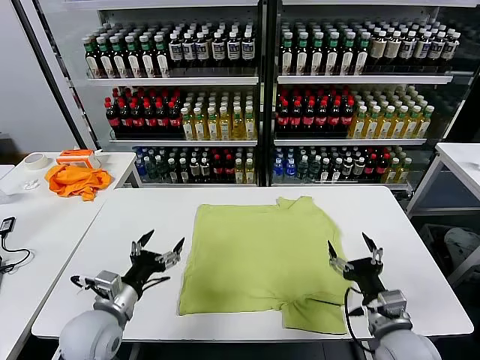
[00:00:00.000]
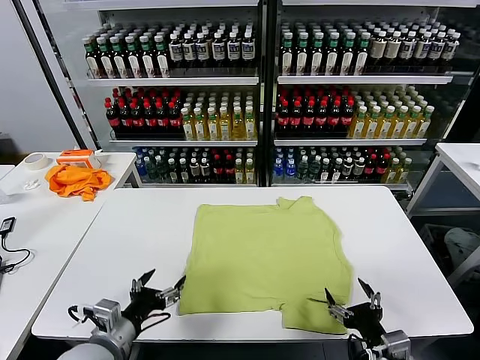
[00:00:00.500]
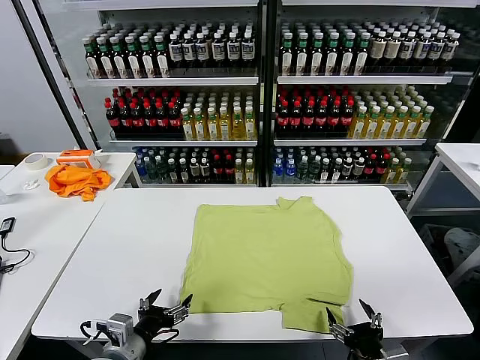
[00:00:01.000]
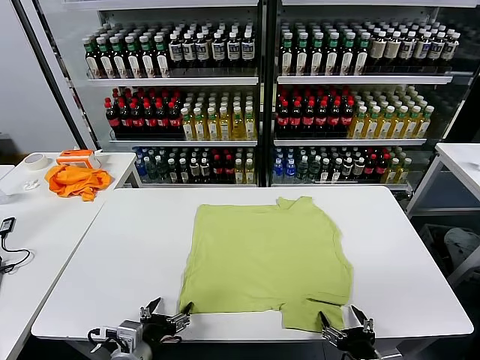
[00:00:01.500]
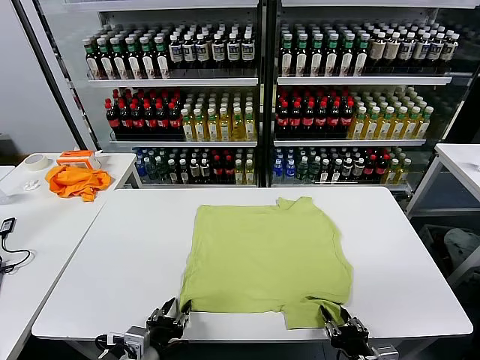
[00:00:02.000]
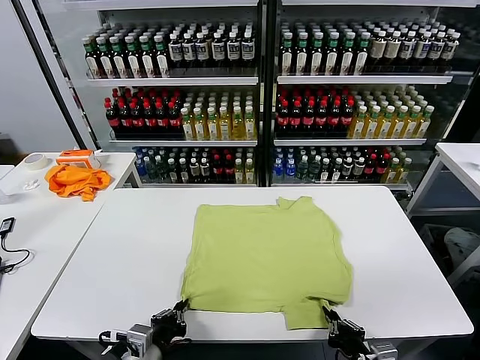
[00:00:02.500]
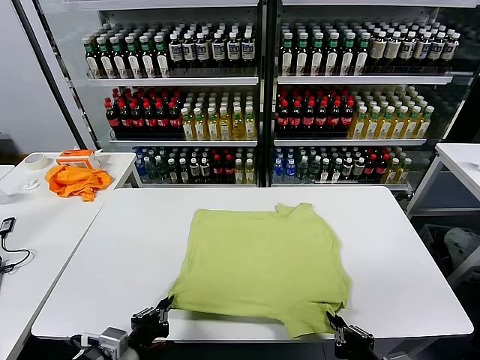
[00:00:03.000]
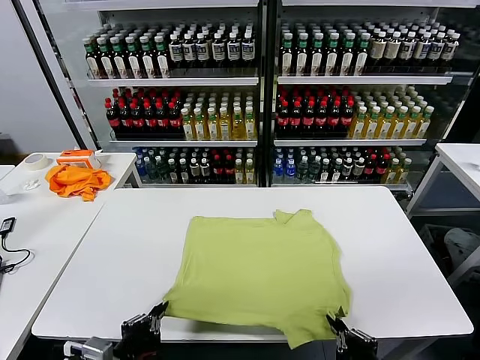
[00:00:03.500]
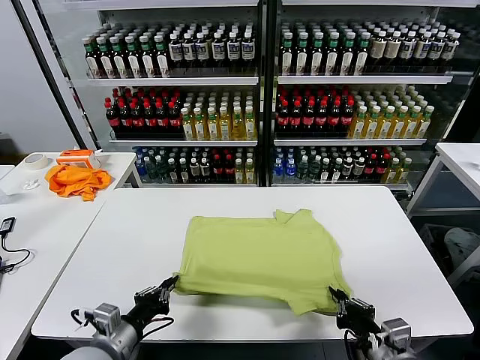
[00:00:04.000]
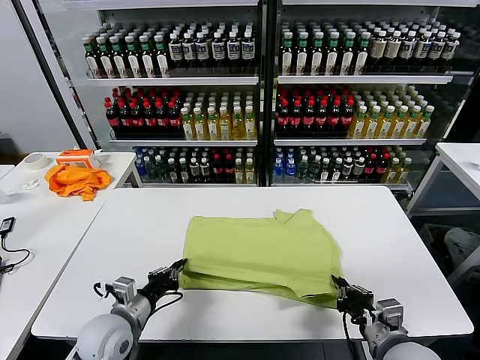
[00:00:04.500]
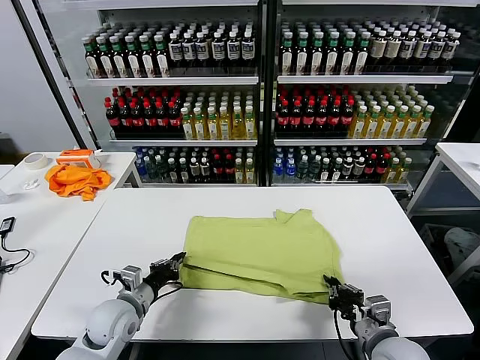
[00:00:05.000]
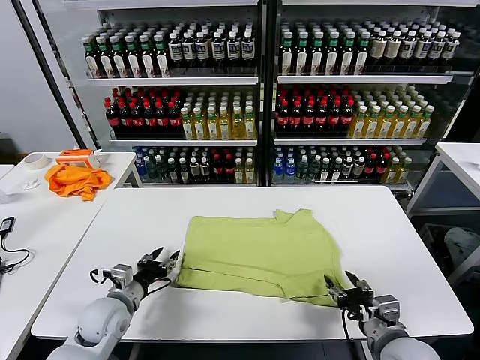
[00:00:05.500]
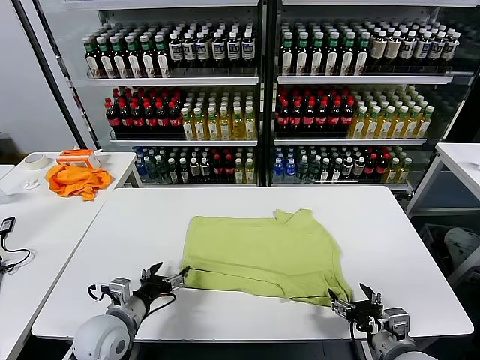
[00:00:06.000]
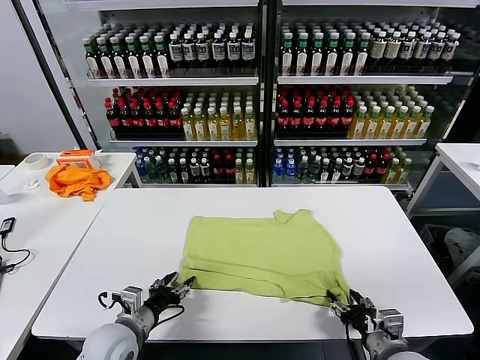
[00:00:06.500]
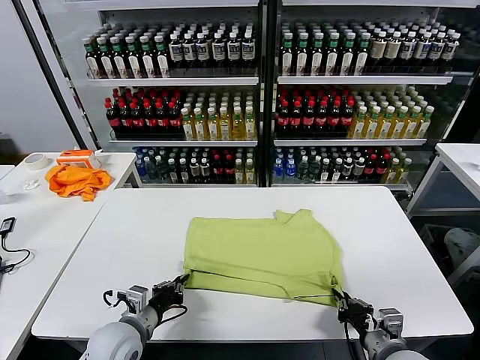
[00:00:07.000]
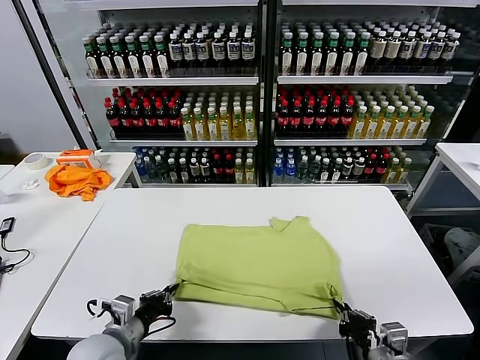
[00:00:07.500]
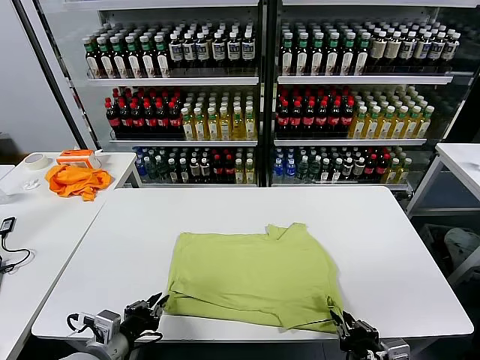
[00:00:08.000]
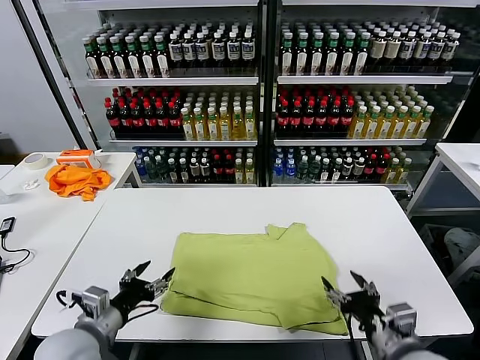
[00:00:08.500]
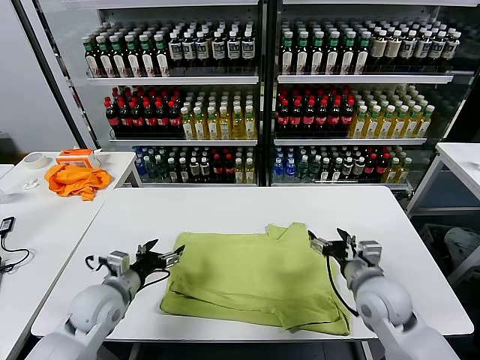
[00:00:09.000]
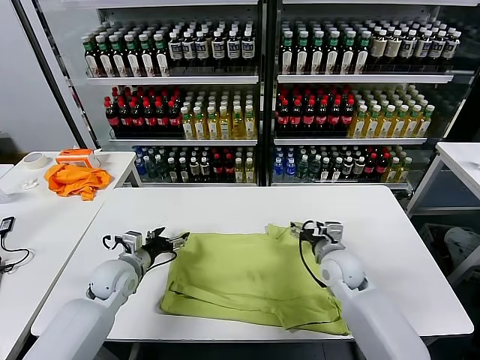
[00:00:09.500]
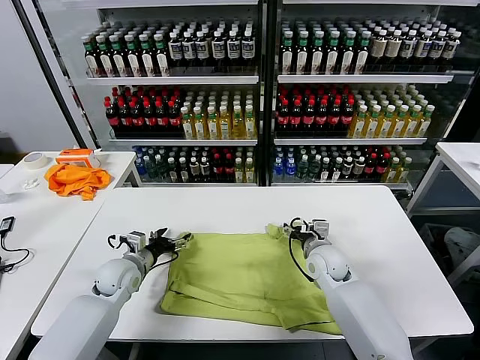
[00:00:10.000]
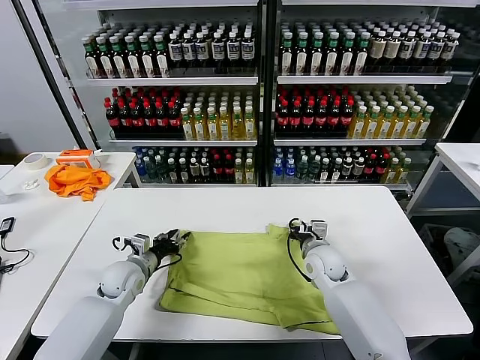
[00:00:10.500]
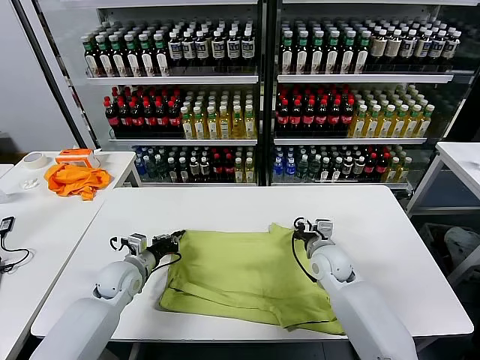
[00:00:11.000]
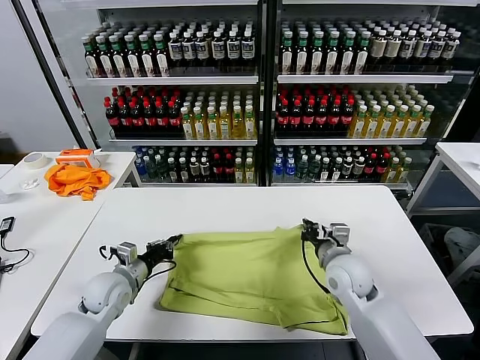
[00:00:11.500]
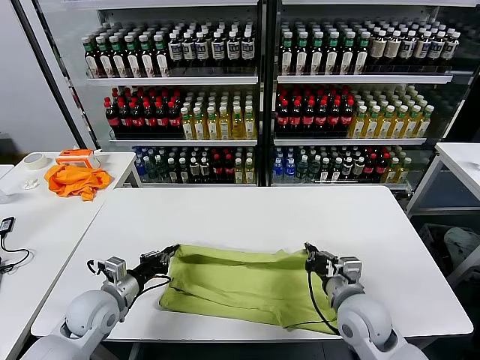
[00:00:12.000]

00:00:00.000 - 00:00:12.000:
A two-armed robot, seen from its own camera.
Task of the whole recording: fold and organize the clothes.
Step, 00:00:00.000 - 00:00:02.500: use both grippers simultaneously to clamp the lower edge of the clothing fabric.
Step, 00:00:03.000 - 00:00:05.000: use both grippers to drag the lower edge of the fabric forward and fold it over the upper edge.
Step, 00:00:05.500 - 00:00:08.000: Drag the clothes downward with both gripper.
Step, 00:00:08.500 - 00:00:11.000: use both grippers simultaneously to clamp the upper edge of the clothing fabric.
00:00:02.000 - 00:00:04.000: The left gripper heads to the left, covering about 5 cm, and closes its fingers. The right gripper moves upward, approximately 5 cm.
00:00:04.000 - 00:00:06.000: The left gripper shifts some 5 cm forward, and opens. The right gripper opens up.
00:00:06.000 - 00:00:08.000: Both grippers travel together backward, about 5 cm. The left gripper closes, while the right gripper closes.
00:00:08.000 - 00:00:10.000: Both grippers move forward, roughly 25 cm. The right gripper opens its fingers; the left gripper opens up.
00:00:10.000 - 00:00:12.000: The left gripper is displaced backward by roughly 10 cm, and closes. The right gripper shifts about 15 cm backward, and closes its fingers.

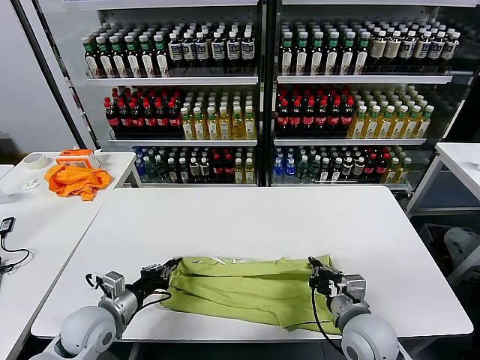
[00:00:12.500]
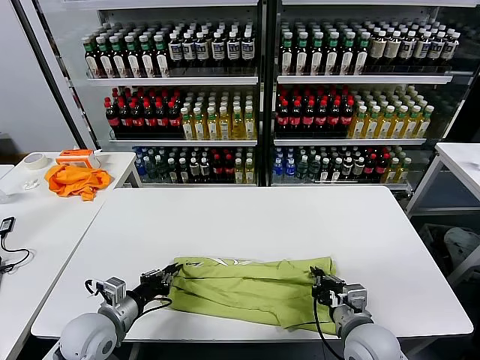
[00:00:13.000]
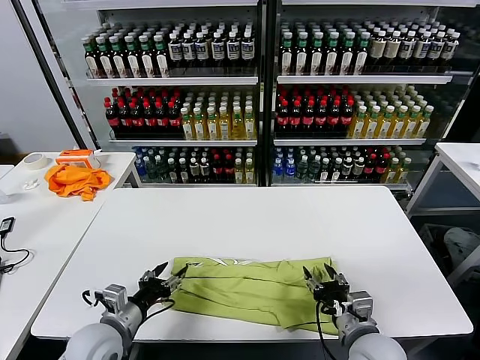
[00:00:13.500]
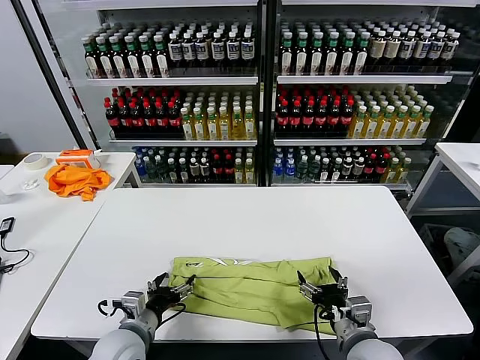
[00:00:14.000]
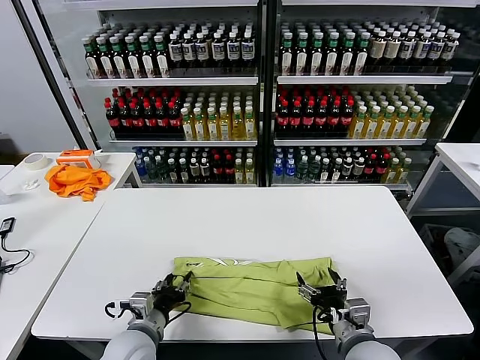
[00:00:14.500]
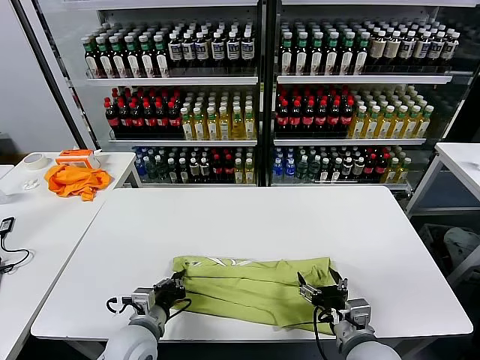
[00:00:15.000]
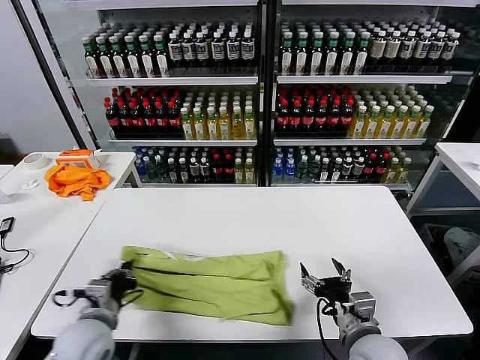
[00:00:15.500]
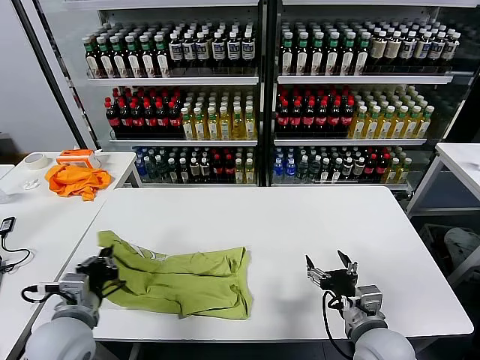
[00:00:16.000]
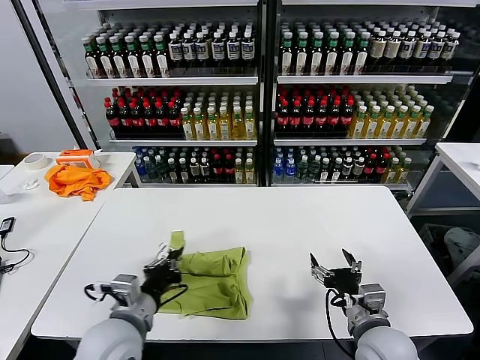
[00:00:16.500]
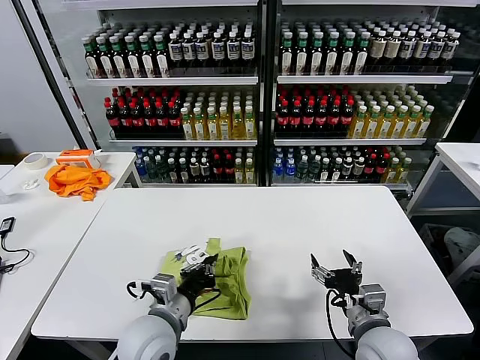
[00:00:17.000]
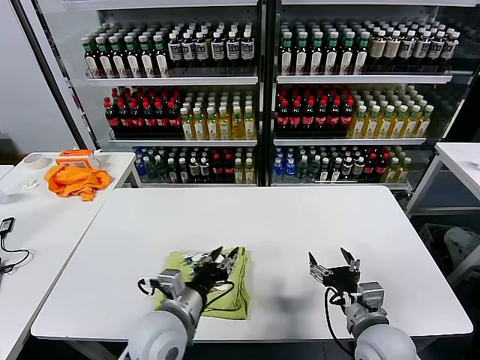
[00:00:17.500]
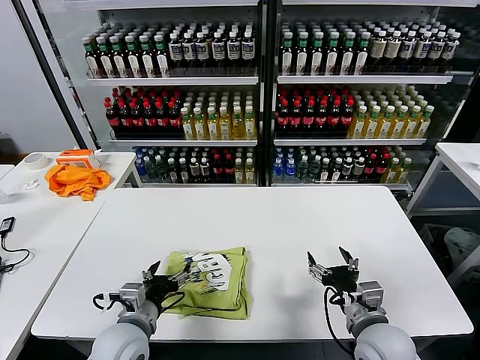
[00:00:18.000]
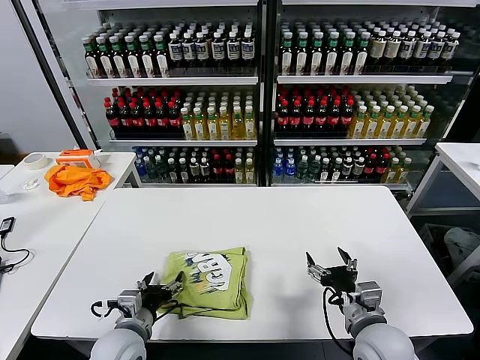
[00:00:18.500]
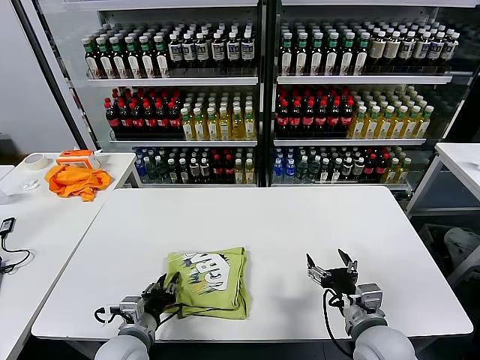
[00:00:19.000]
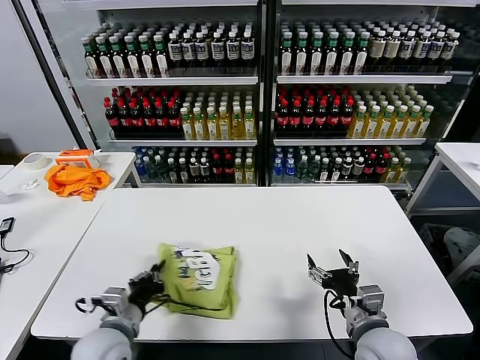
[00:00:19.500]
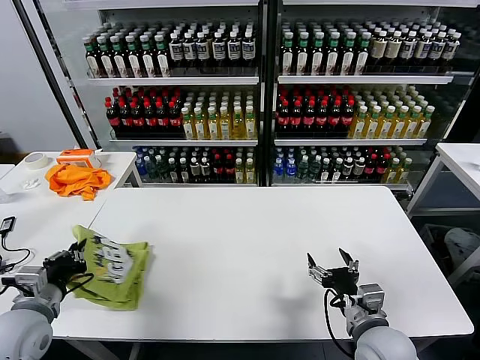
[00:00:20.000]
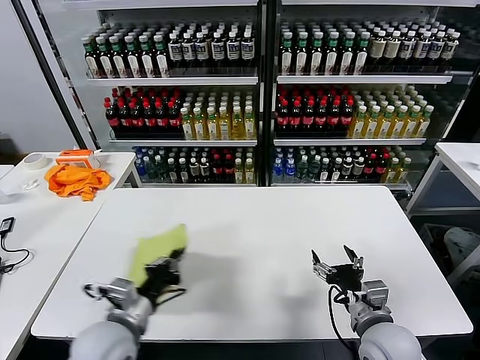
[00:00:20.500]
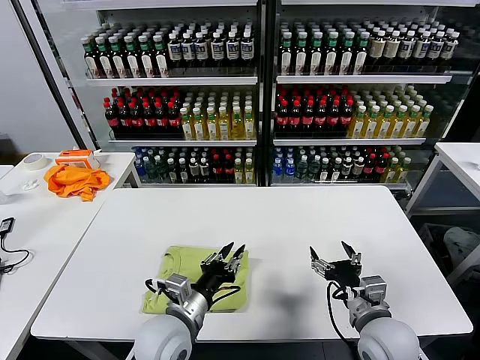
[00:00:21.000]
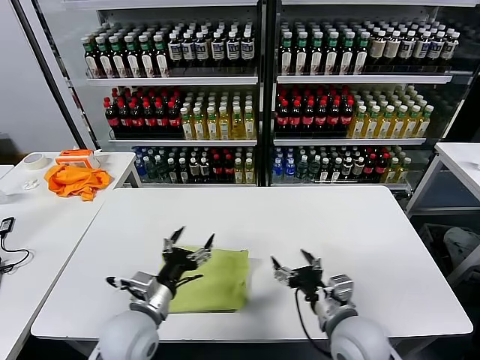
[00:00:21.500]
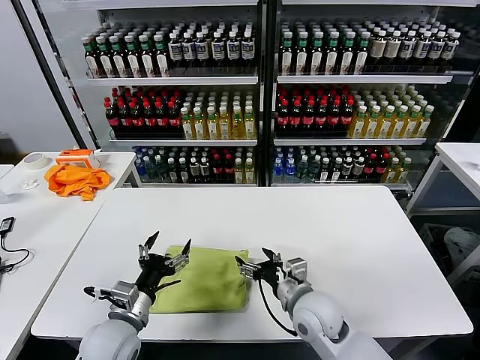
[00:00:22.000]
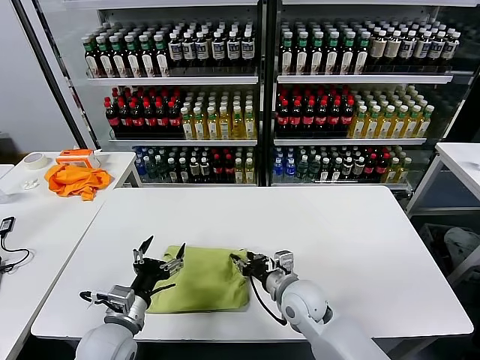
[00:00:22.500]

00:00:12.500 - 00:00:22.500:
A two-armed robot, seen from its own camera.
Task of the whole recording: fold and organize the clothes.
Step, 00:00:13.500 - 00:00:14.500: use the left gripper to clamp the left edge of the fabric.
Step, 00:00:15.000 - 00:00:17.500: use the left gripper to drag the left edge of the fabric to the left and folds it over the right edge.
Step, 00:00:18.000 - 00:00:20.500: Flip the folded clothes over with left gripper.
00:00:12.500 - 00:00:14.500: The left gripper moves to the right, some 10 cm, and opens up; the right gripper opens its fingers.
00:00:14.500 - 00:00:16.500: The left gripper is displaced upward by some 10 cm, and closes up.
00:00:16.500 - 00:00:18.500: The left gripper goes approximately 10 cm downward, goes to the right and returns, some 10 cm each way, and opens up.
00:00:18.500 - 00:00:20.500: The left gripper moves upward, approximately 10 cm, travels to the left and back again, roughly 15 cm each way, and closes its fingers.
00:00:20.500 - 00:00:22.500: The left gripper travels downward by about 5 cm, reaches some 10 cm to the right, then returns, and opens its fingers, while the right gripper shifts approximately 15 cm to the left and forward, and closes its fingers.

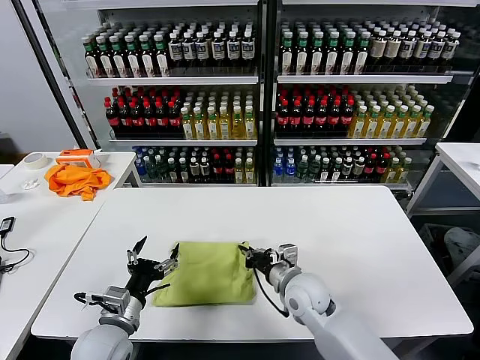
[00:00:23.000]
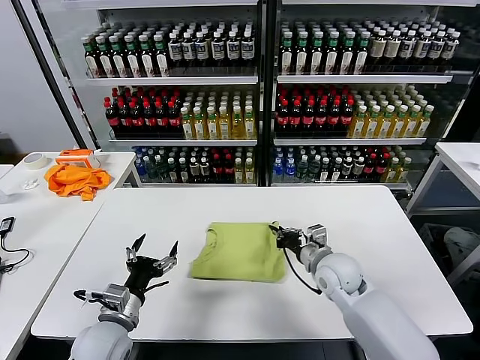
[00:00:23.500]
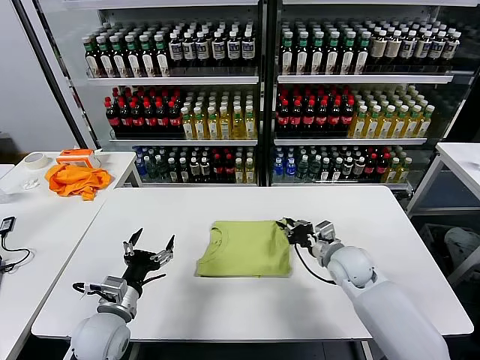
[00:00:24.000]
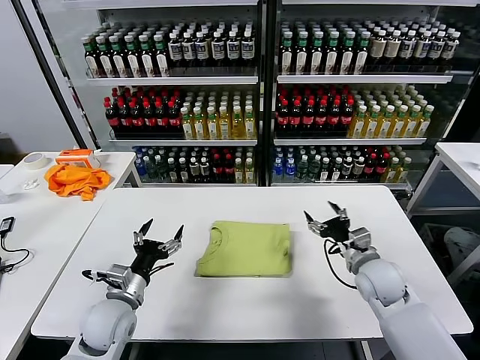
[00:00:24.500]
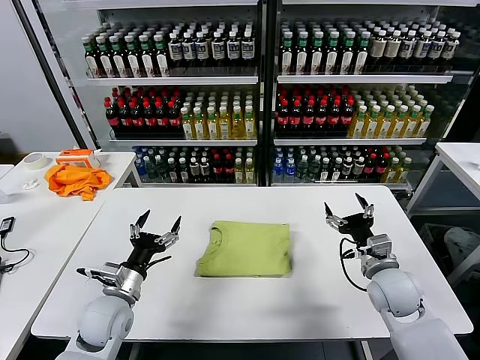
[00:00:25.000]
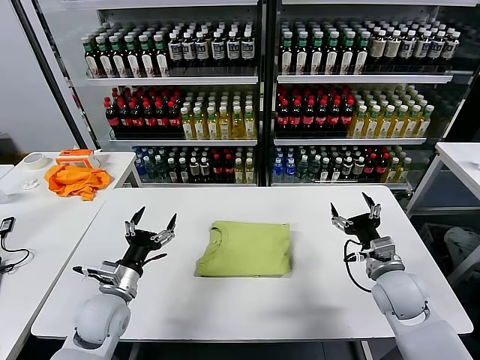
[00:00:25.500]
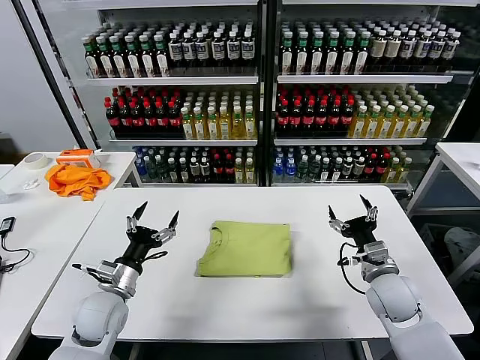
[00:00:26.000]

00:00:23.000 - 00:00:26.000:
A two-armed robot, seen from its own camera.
Task of the whole recording: fold and organize the clothes.
00:00:23.000 - 00:00:24.500: The right gripper is displaced to the right by approximately 15 cm, and opens up; the left gripper ends up some 5 cm from where it was.
00:00:24.500 - 00:00:26.000: There are only small adjustments of the grippers.
